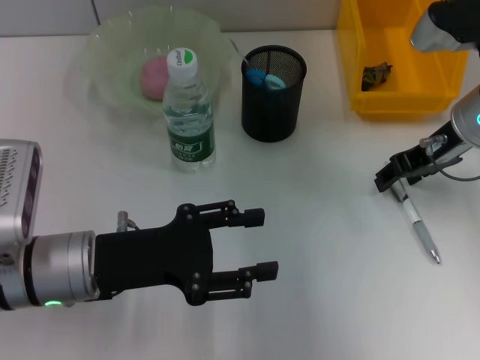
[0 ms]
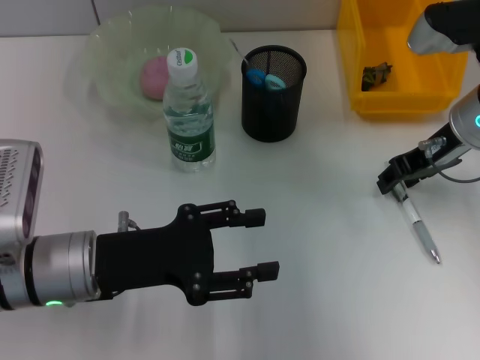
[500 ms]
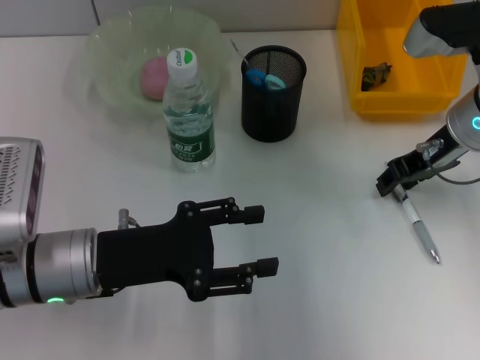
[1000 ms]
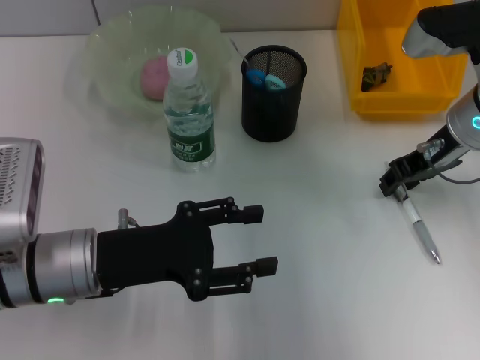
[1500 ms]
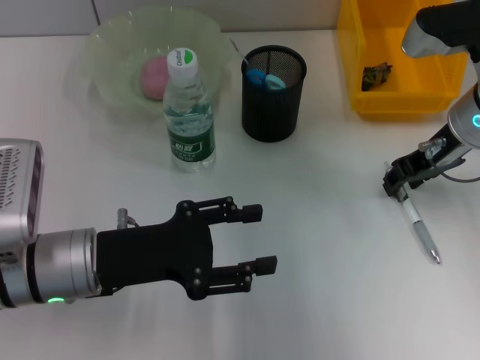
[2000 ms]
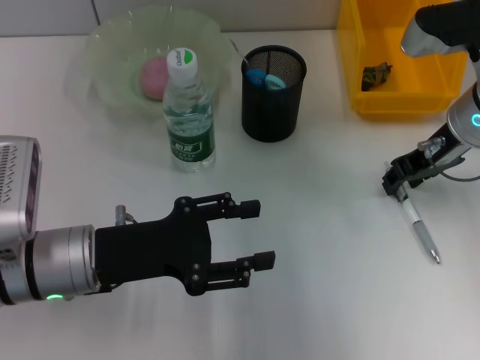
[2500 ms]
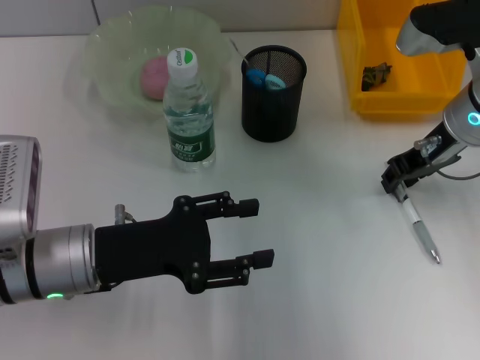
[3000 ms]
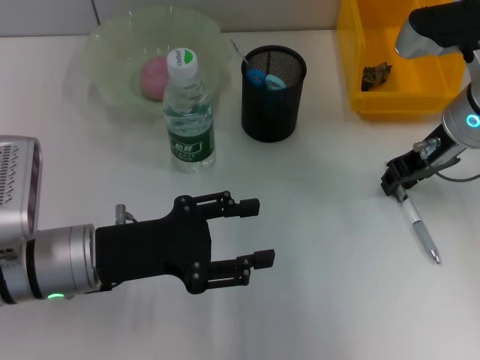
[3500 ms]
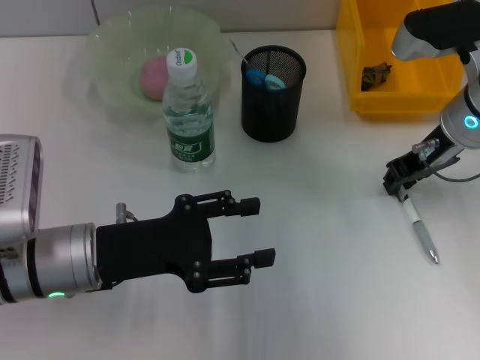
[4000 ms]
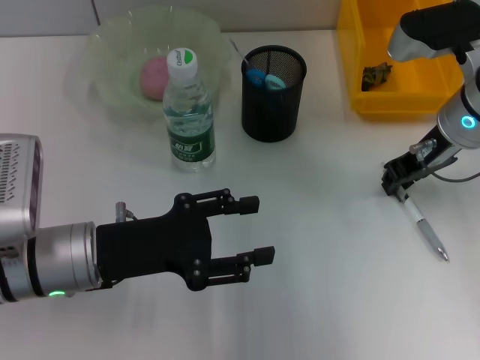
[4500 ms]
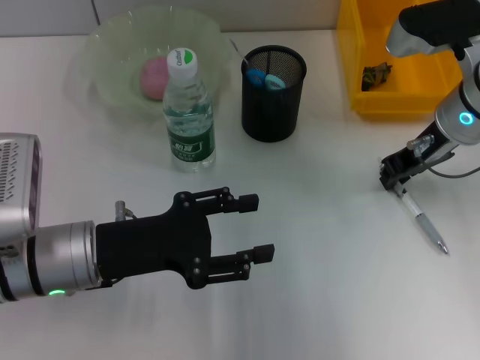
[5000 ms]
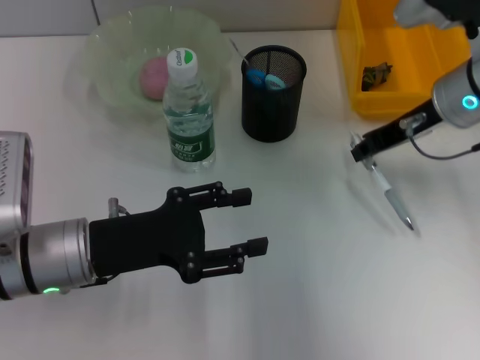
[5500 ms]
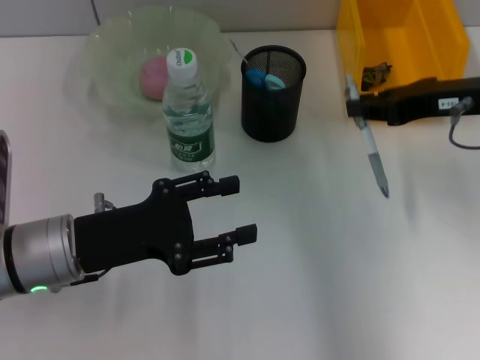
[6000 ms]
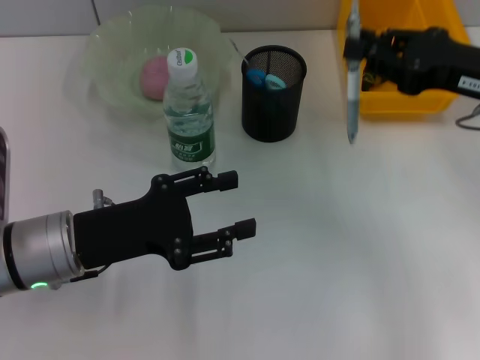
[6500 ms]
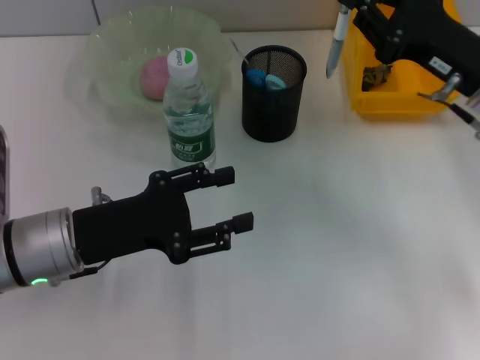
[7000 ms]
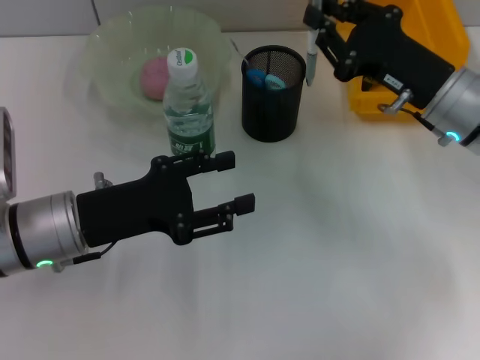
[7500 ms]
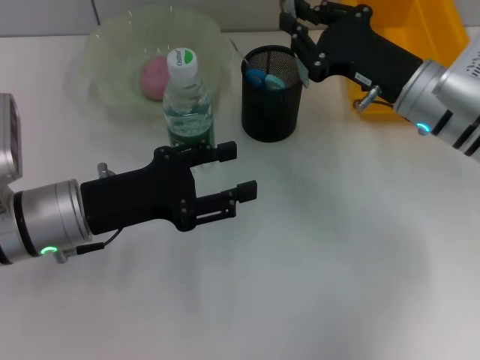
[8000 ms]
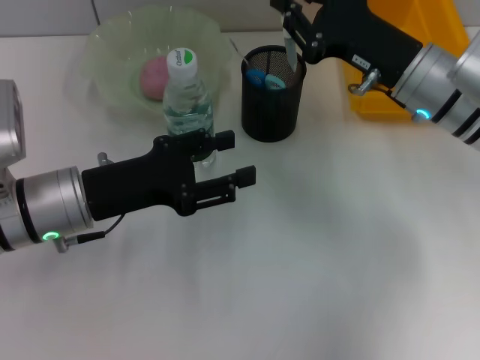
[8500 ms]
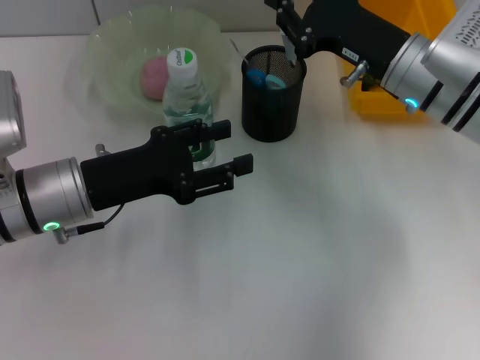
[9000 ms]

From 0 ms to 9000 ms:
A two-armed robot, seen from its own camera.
Step, from 0 ms to 4500 ms: Grab the gray spring-action pen with the right hand.
From 0 ms to 2000 ms: Neither gripper changes place.
From 2000 ms to 4500 ms: Neither gripper changes place.
From 7000 ms to 9000 ms: The right gripper goes some 5 cm to the left.

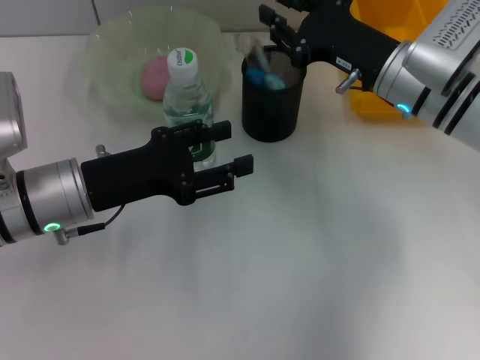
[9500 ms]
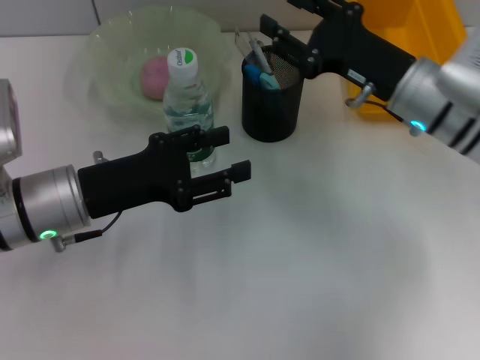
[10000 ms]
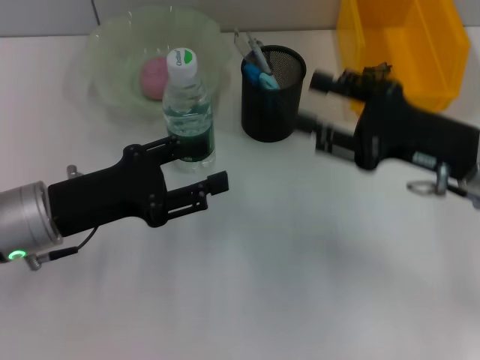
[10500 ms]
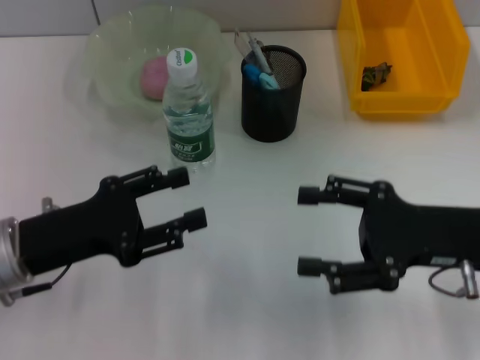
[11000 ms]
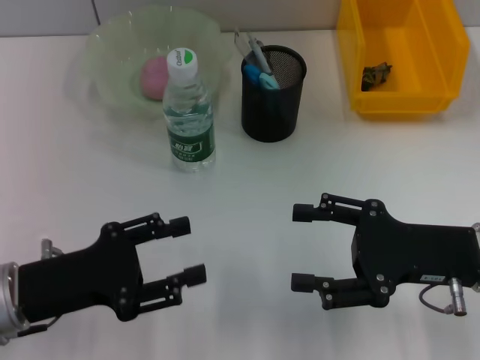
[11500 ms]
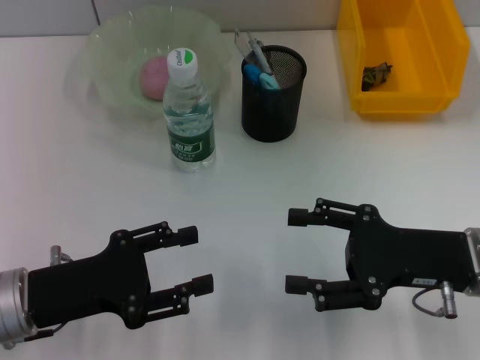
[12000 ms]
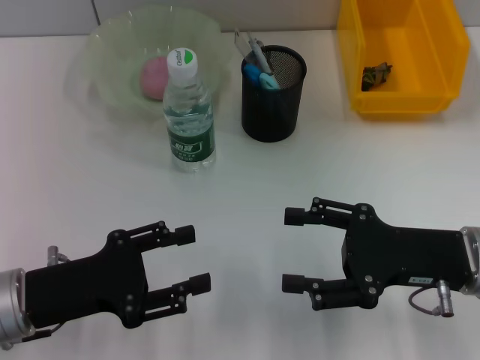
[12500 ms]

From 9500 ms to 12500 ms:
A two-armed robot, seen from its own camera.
From 9500 ms to 11000 ms: The right gripper shifts some 15 cm backward and to the right, and opens, while the left gripper moves backward, roughly 5 cm.

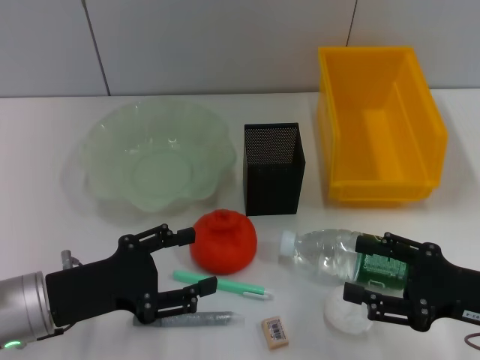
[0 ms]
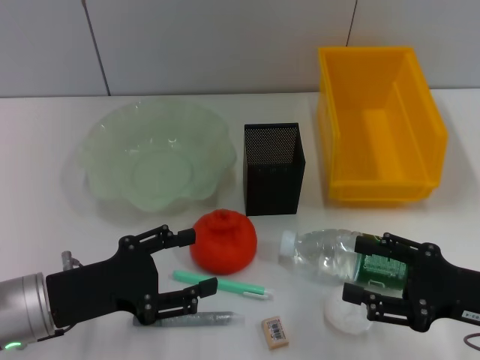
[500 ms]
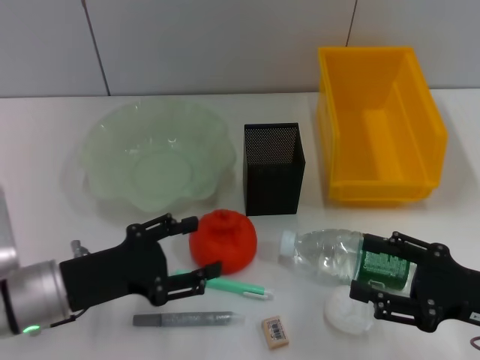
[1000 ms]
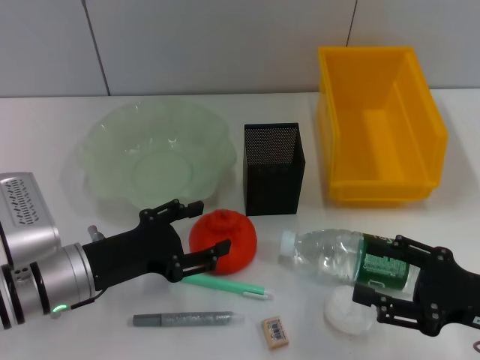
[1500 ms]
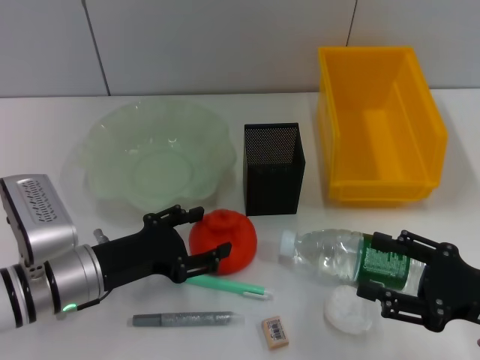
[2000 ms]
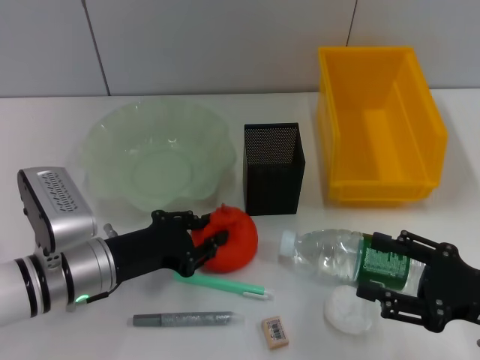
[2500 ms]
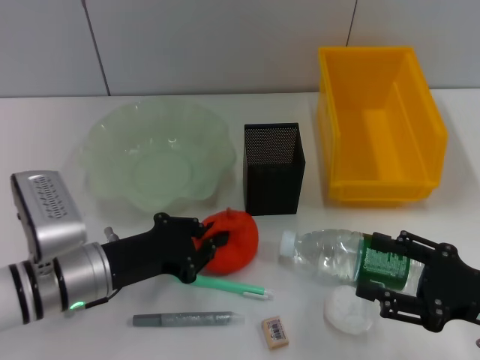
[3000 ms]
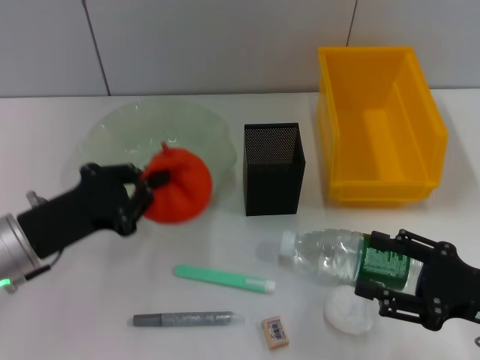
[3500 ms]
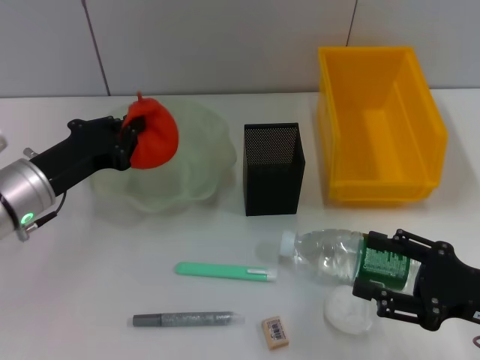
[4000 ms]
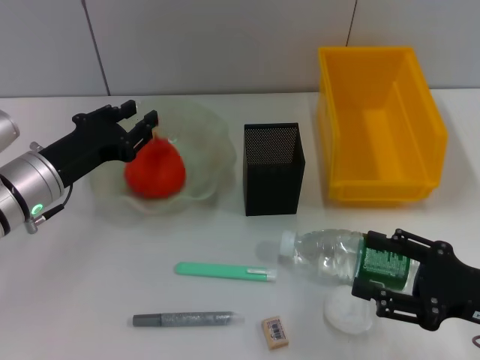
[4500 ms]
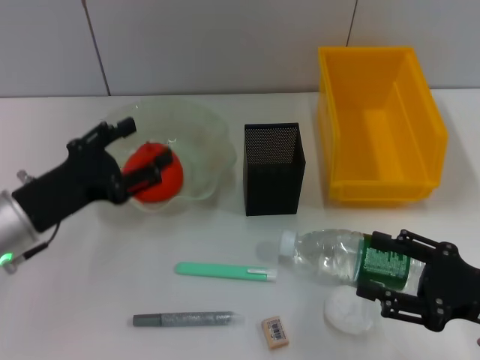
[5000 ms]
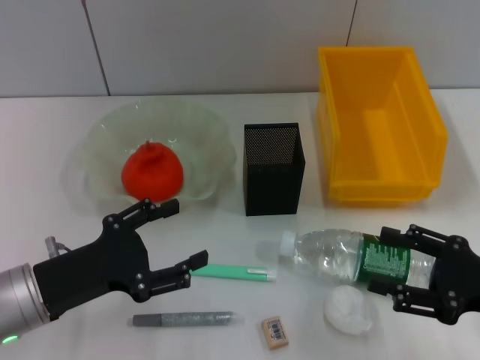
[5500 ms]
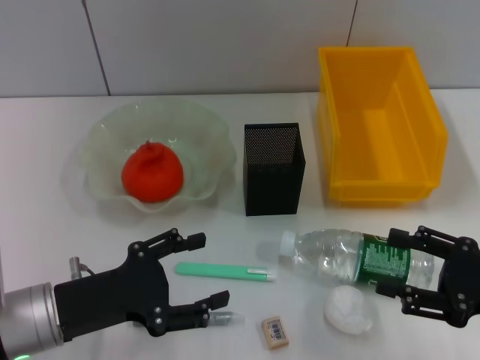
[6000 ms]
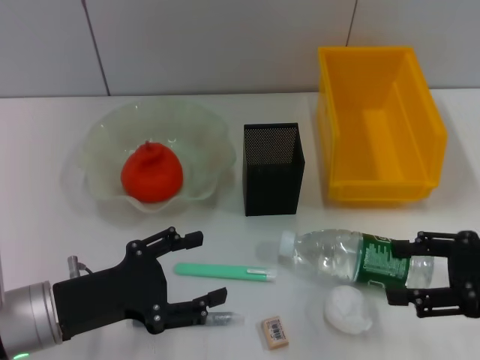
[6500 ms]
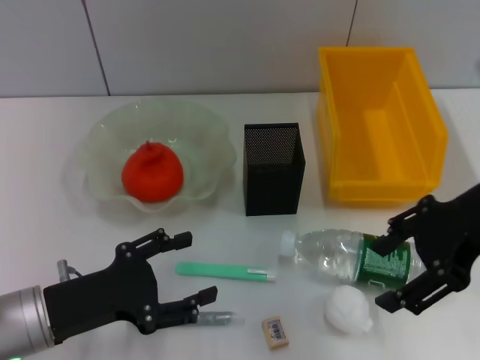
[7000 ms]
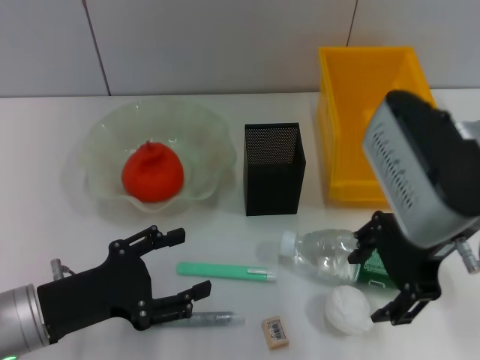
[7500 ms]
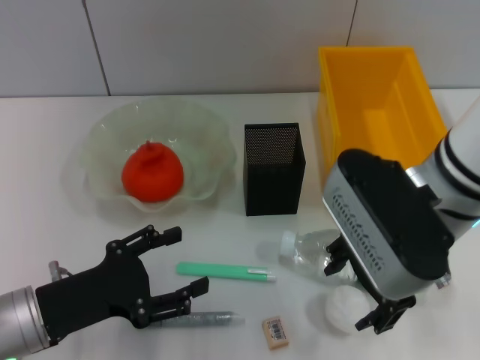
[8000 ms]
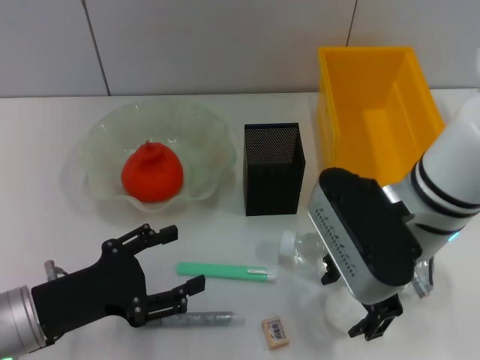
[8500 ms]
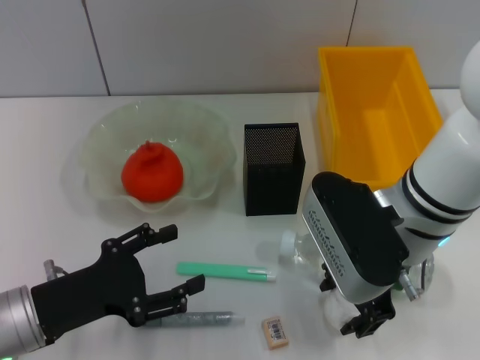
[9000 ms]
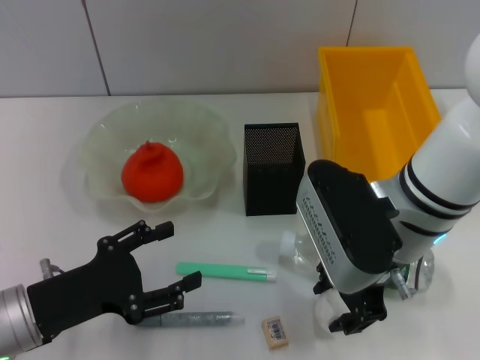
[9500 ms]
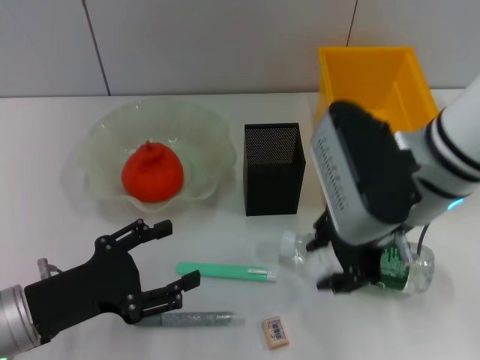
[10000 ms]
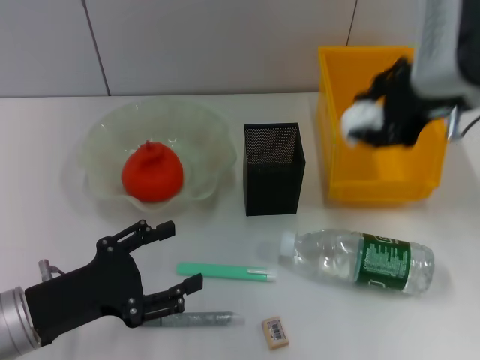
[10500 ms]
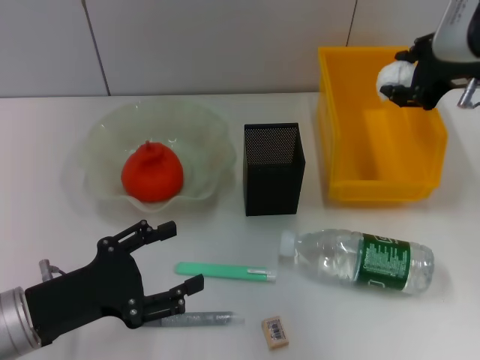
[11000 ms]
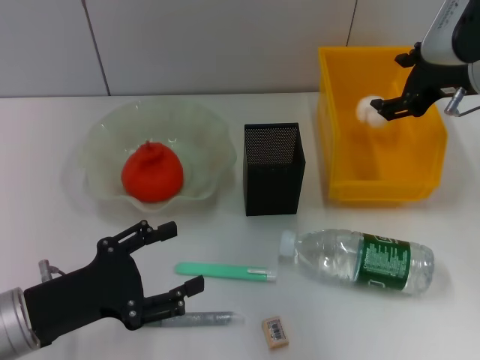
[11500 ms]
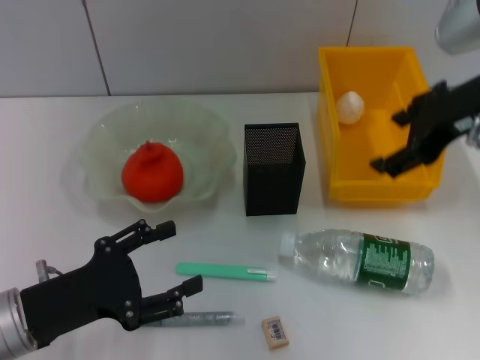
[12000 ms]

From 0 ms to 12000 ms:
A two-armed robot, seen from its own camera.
Step, from 0 ms to 2500 ms: Grab the orange with the left hand.
Step, from 3000 ms to 4500 ms: Place the orange into the fruit bowl with the left hand.
Step, from 5000 ms to 9000 ms: Grab the paper ball with the right hand.
Step, from 9500 ms to 11500 ms: Place the paper ball into the trash can with the right hand.
From 0 ms to 2000 ms: The left gripper ends up some 5 cm from where it was.
From 2000 ms to 4000 ms: The left gripper goes roughly 5 cm forward, and closes up.
From 4000 ms to 6000 ms: The left gripper heads backward, covering some 10 cm, and opens.
From 6000 ms to 8000 ms: The right gripper travels to the left, upward and forward by some 25 cm.
From 8000 ms to 10000 ms: The right gripper closes up.
From 10000 ms to 12000 ms: The right gripper heads to the right and upward, covering about 10 cm, and opens up.

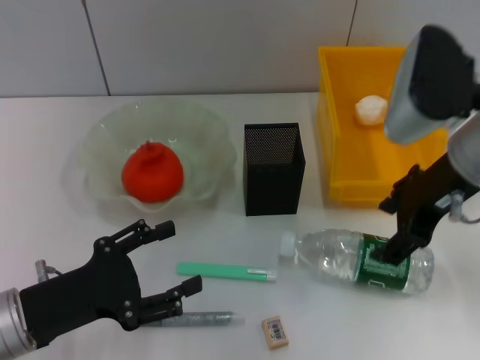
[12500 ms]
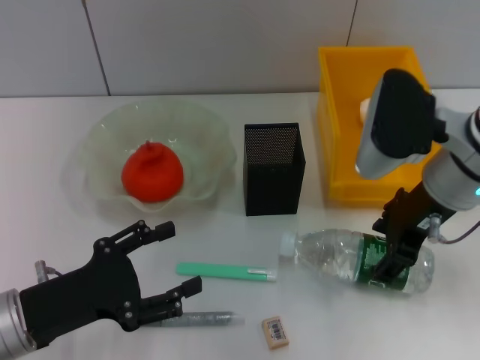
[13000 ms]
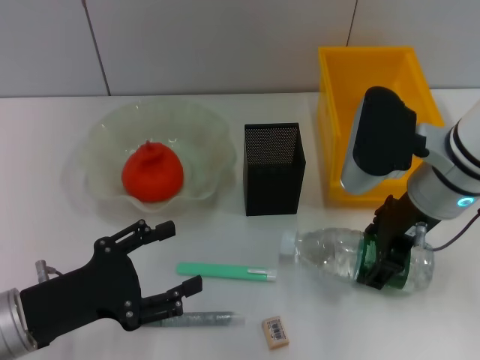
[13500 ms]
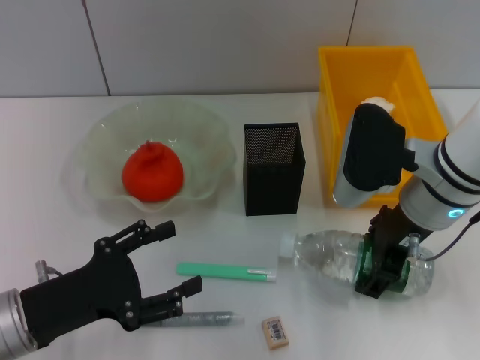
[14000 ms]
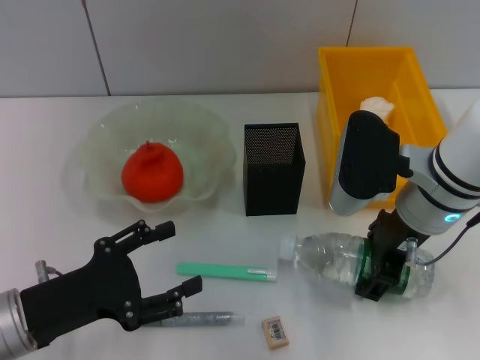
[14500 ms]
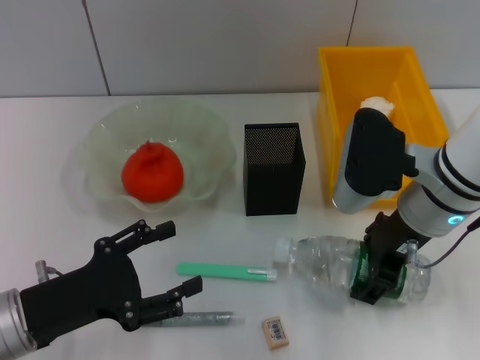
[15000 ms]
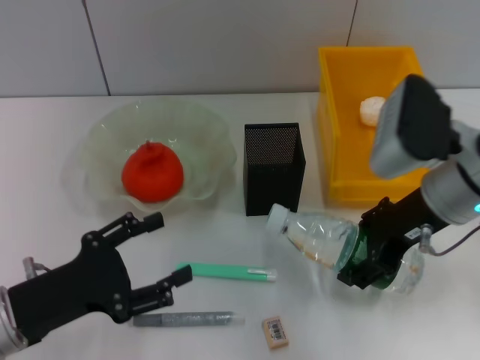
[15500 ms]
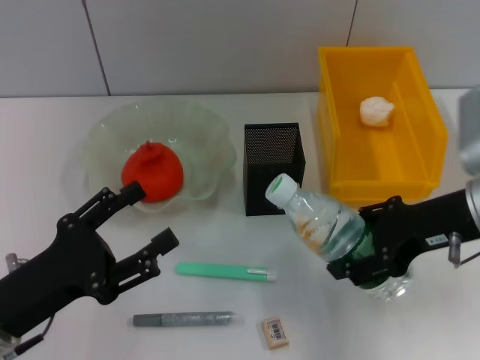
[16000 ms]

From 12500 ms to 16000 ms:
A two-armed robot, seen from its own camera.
Step, from 12500 ms to 14000 ms: Grab the water bottle with the right hand.
From 12500 ms to 14500 ms: The right gripper goes some 5 cm downward.
From 14500 ms to 16000 ms: The right gripper moves to the right, roughly 10 cm.
